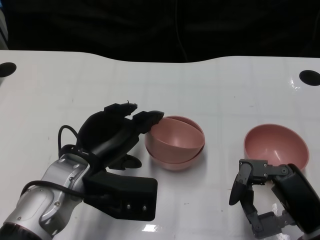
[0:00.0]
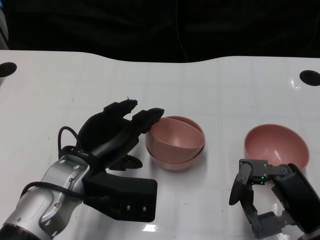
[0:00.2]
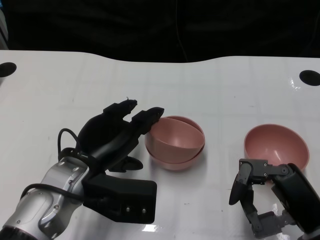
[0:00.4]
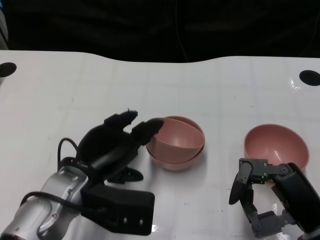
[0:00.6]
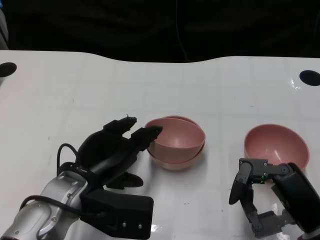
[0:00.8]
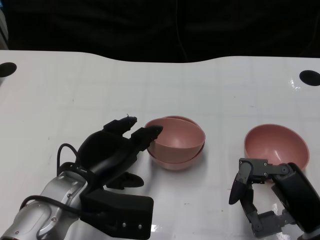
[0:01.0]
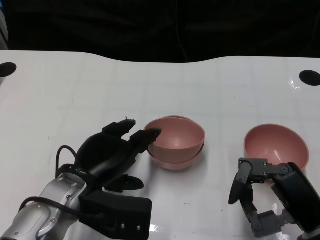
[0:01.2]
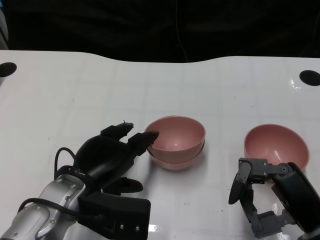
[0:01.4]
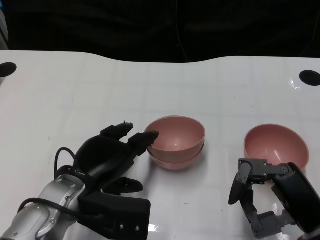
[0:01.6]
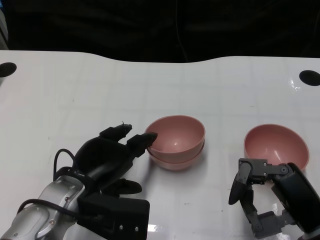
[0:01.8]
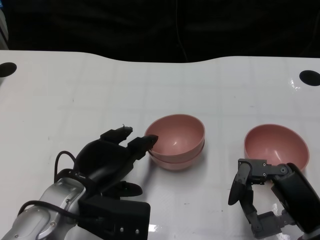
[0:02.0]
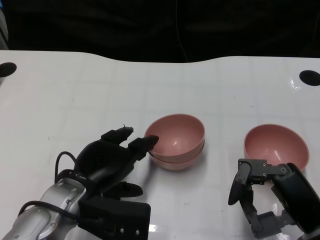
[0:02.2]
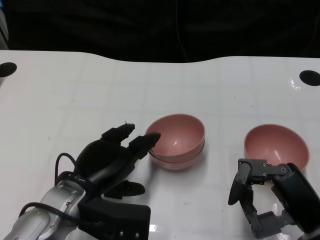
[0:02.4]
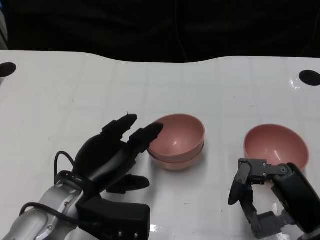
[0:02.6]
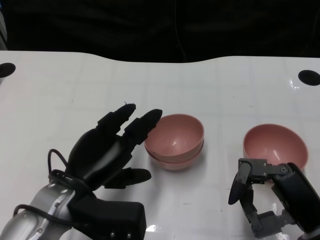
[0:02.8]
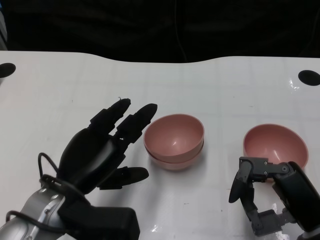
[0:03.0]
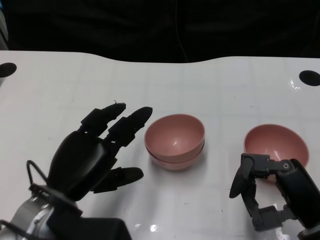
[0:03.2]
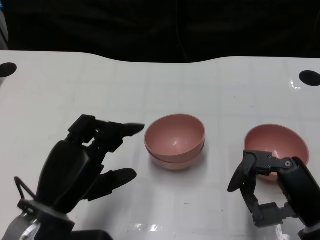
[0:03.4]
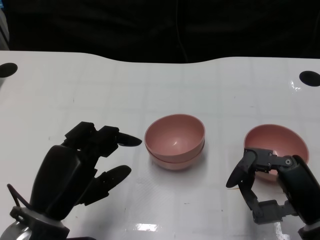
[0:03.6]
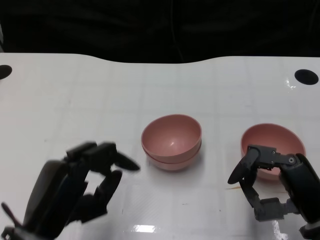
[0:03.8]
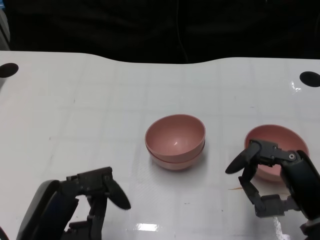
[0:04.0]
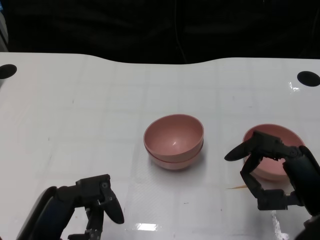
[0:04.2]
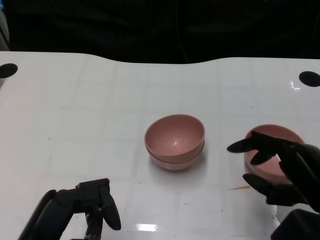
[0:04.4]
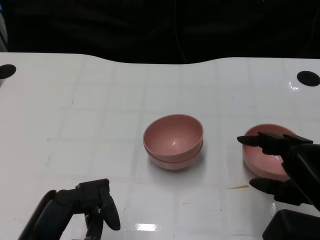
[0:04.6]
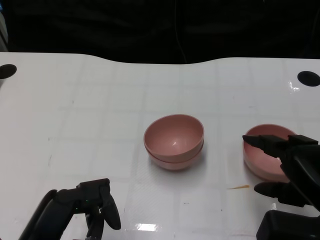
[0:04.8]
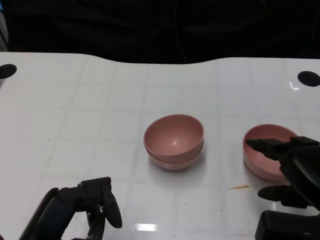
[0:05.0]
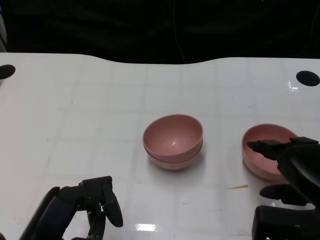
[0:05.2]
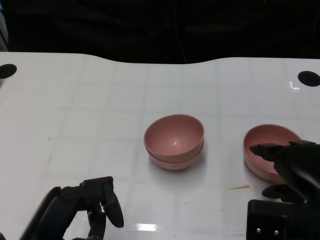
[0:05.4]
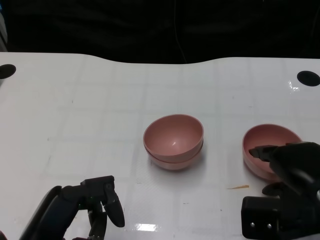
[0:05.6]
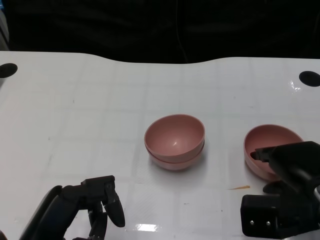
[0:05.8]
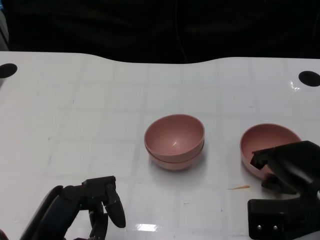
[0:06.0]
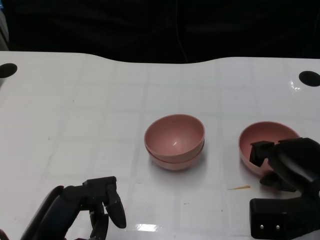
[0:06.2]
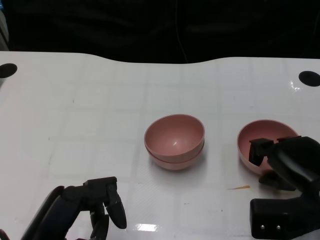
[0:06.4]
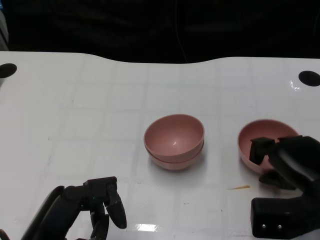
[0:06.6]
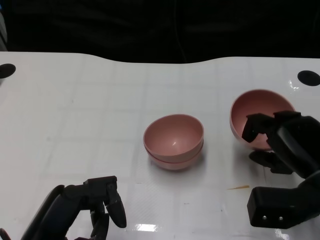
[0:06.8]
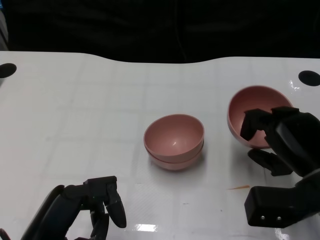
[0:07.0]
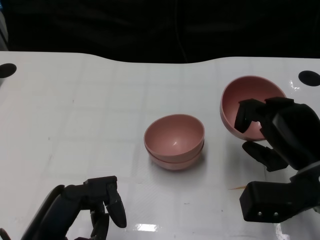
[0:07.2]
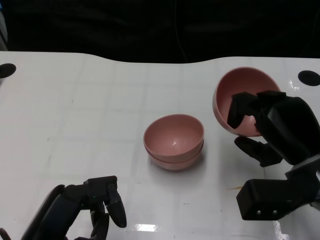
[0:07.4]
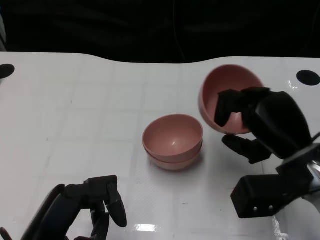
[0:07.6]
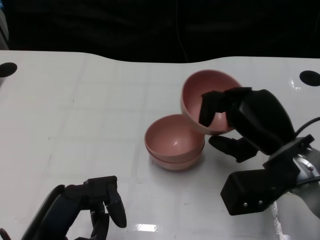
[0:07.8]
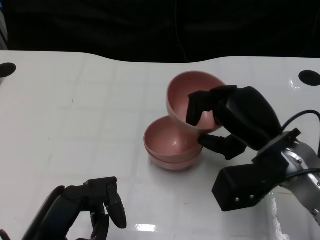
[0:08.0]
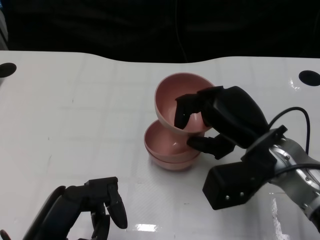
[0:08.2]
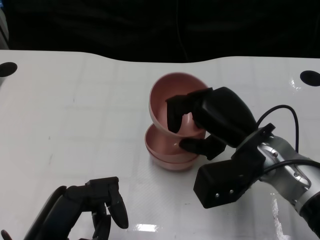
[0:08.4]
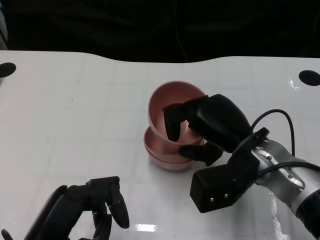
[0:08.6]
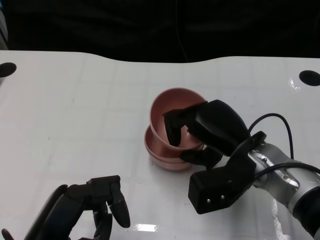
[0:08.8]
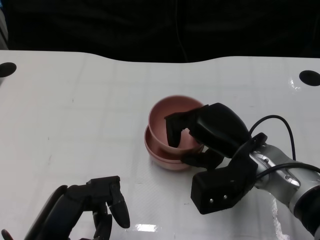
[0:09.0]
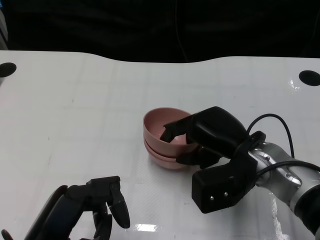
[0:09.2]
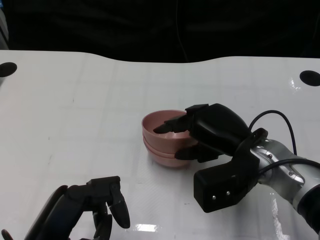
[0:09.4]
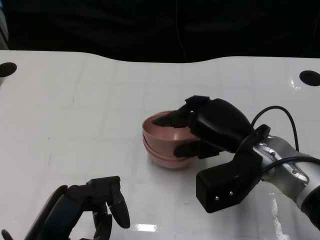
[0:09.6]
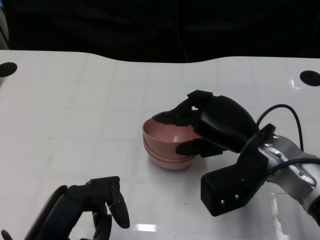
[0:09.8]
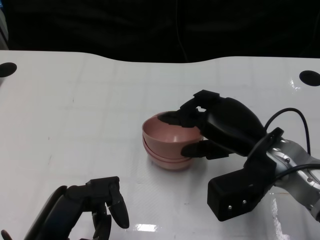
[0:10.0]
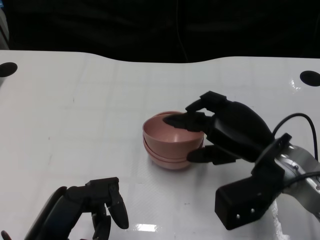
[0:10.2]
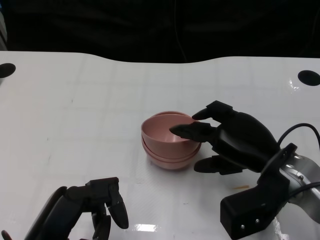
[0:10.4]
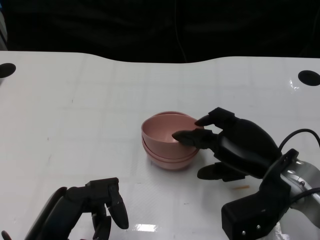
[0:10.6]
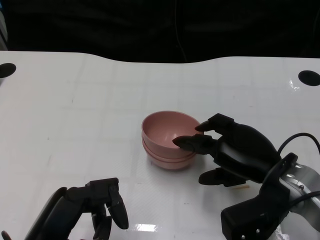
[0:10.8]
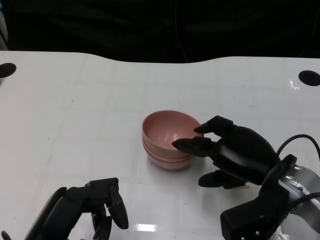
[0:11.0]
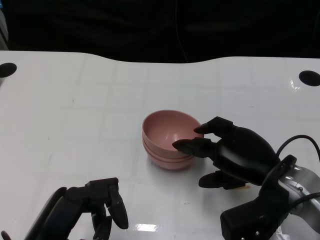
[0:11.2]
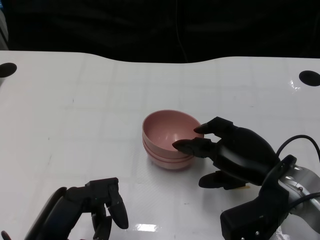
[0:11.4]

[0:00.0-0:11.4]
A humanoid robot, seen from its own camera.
Task of the whole recording: Pick up the bowl on one side of the table and place it on top of the middle bowl, then pick up the bowl on the other side of the table and place it on top of the middle bowls.
Step, 0:00.0 to 0:02.4: Place the bowl on the left onto the bowl in the middle with left gripper.
Step, 0:02.6 to 0:06.6: Grasp the bowl on the right with the right gripper.
0:00.0 to 0:02.8: There are only small adjustments of the hands.
0:02.8 to 0:04.2: The left hand travels backward by some 10 cm.
0:07.2 to 0:08.6: The right hand travels to the left by approximately 10 cm.
0:08.6 to 0:11.4: There are only small adjustments of the hands.

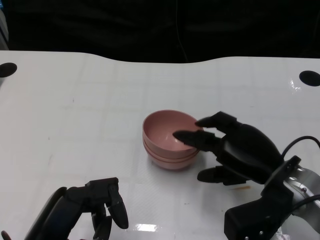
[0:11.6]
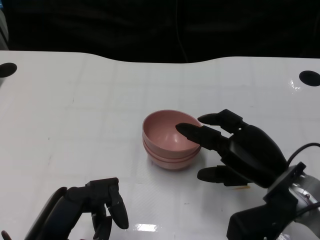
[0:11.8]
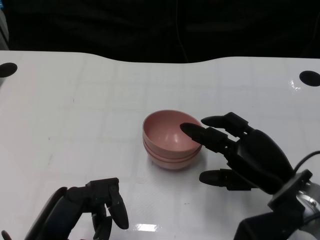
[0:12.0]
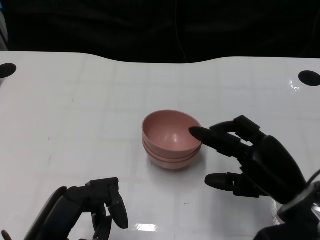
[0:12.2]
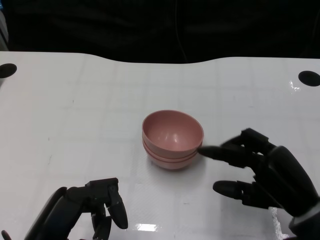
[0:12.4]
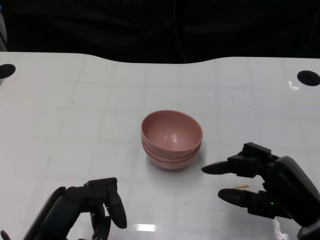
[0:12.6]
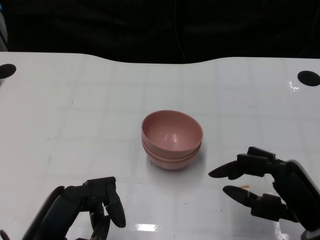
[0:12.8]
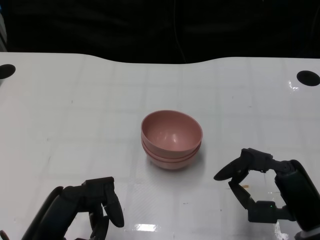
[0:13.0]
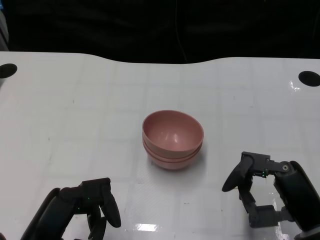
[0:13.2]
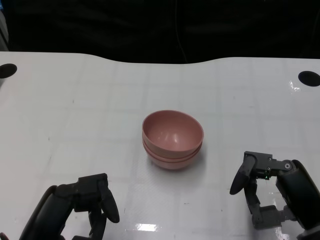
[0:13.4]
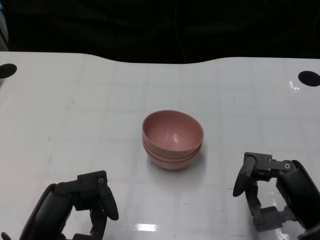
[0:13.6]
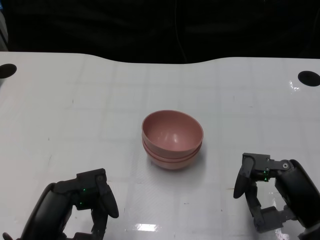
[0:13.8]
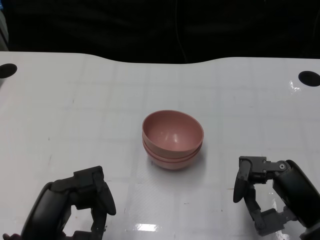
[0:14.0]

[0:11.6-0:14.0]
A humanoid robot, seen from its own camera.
Task of the whole recording: Pick up the bowl on one side of the table and place it on top of the middle bowl, then pick up the bowl on the other side of the table and place it on top of the middle bowls.
0:11.6 to 0:12.8: The right hand is displaced backward by roughly 5 cm.
0:12.8 to 0:14.0: The hands stay close to where they were, moving slightly.
